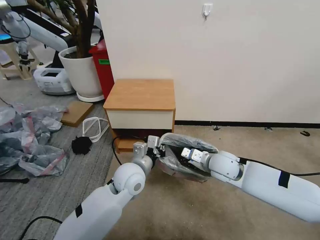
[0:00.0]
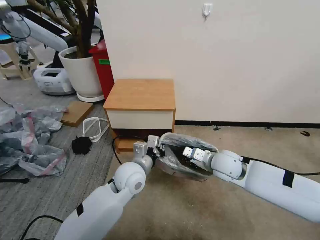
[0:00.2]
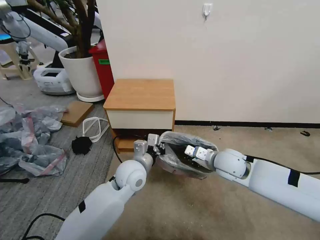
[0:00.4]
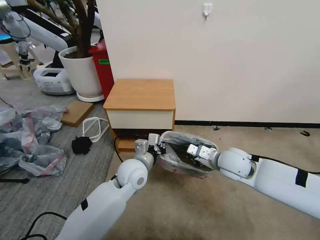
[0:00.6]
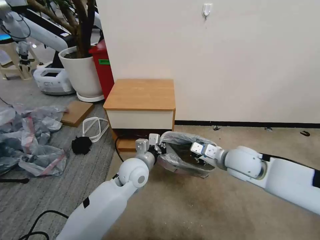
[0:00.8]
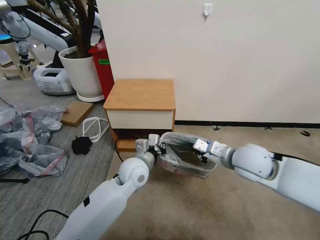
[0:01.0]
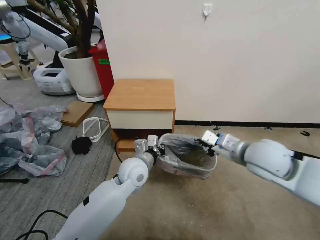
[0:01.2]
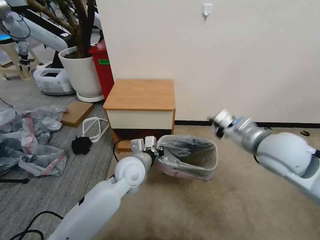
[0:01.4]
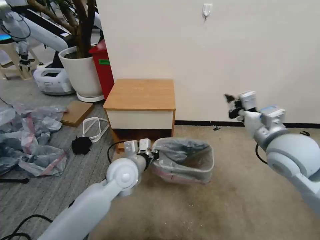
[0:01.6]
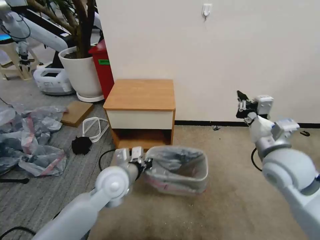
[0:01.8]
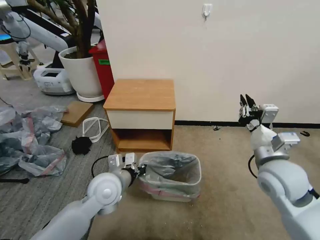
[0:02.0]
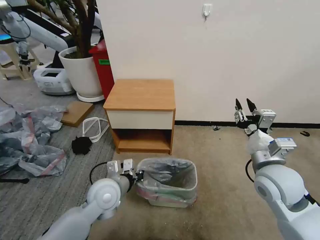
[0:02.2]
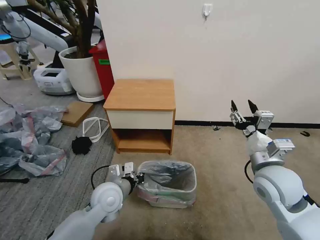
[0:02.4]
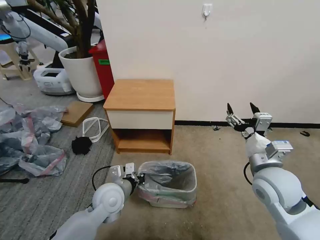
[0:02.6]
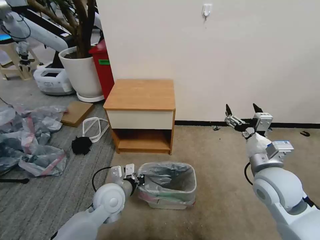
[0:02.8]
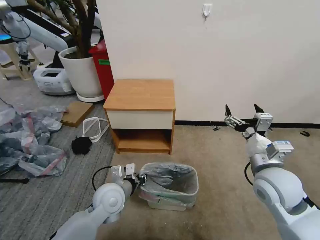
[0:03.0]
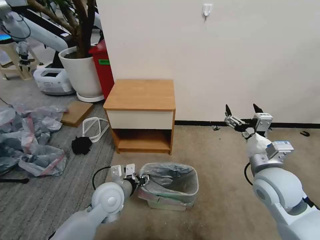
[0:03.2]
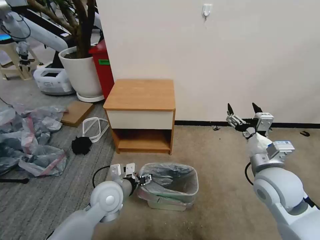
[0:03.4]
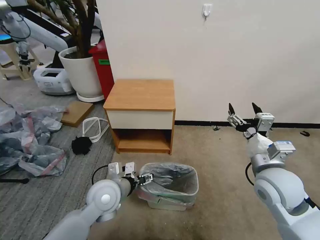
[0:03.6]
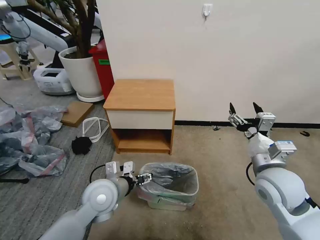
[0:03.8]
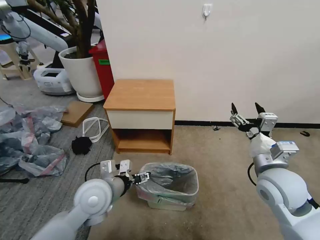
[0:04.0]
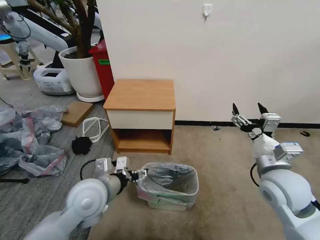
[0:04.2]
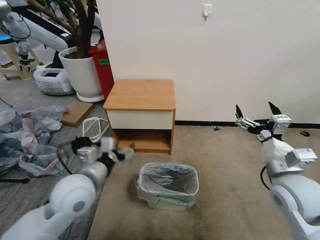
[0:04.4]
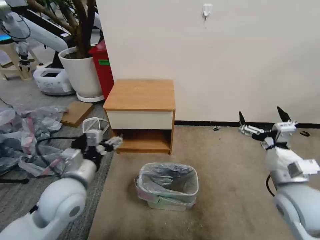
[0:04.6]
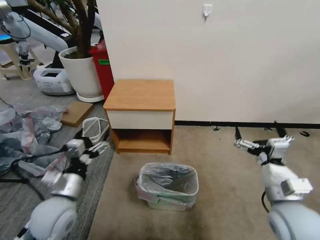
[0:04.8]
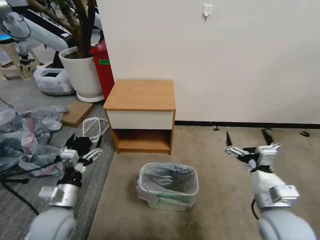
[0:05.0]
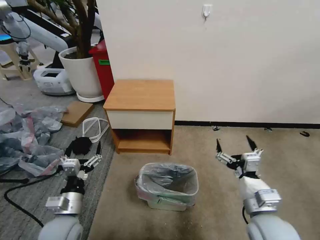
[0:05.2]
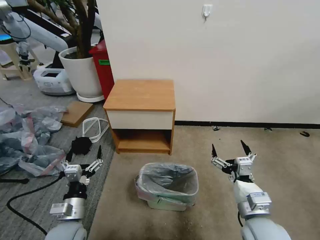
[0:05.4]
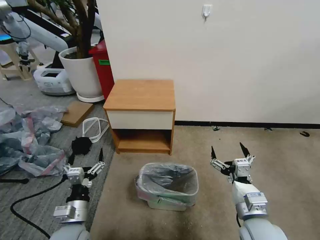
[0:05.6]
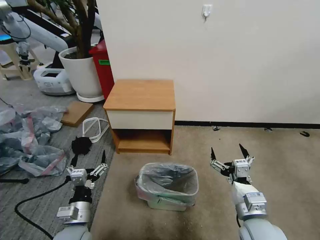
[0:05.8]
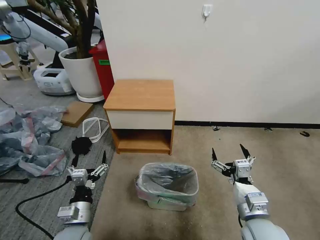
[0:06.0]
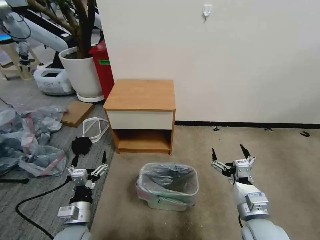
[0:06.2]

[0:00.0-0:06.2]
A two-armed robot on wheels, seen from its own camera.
Task of the whole recording: Pick up the garbage bag from the table and place it over the trash can.
0:00.0 to 0:01.6: The right gripper moves upward and to the right, some 20 cm.
0:01.6 to 0:03.2: The left gripper heads backward and downward, covering about 10 cm, and opens up, while the right gripper is displaced downward by roughly 10 cm, and opens up.
0:03.2 to 0:04.6: The right gripper shifts by approximately 5 cm. The left gripper moves upward and to the left, approximately 10 cm.
0:04.6 to 0:06.2: The right gripper is displaced downward, to the left and backward by some 10 cm. The left gripper heads downward and backward, covering approximately 15 cm.
